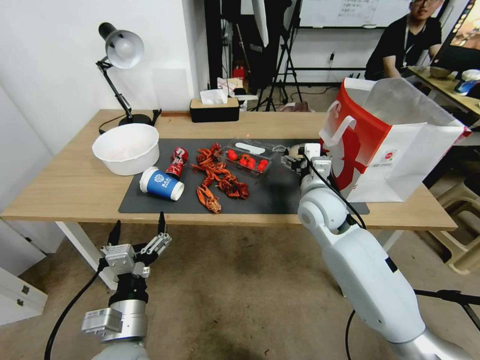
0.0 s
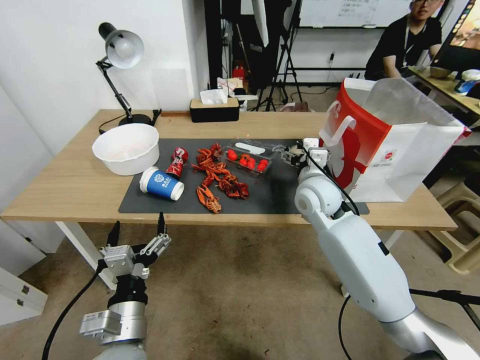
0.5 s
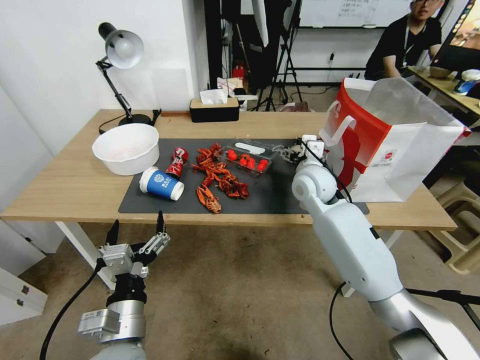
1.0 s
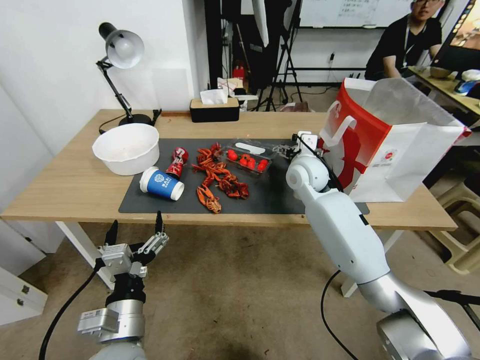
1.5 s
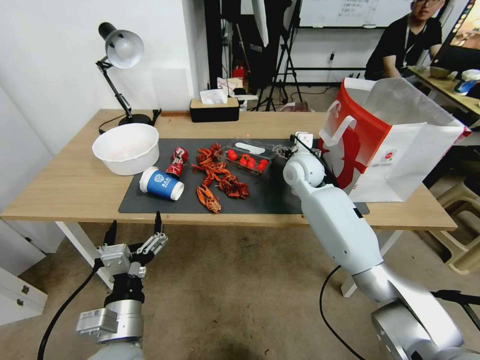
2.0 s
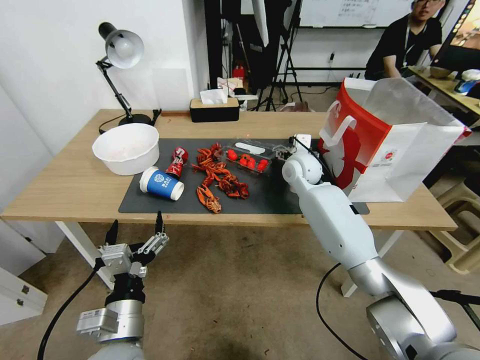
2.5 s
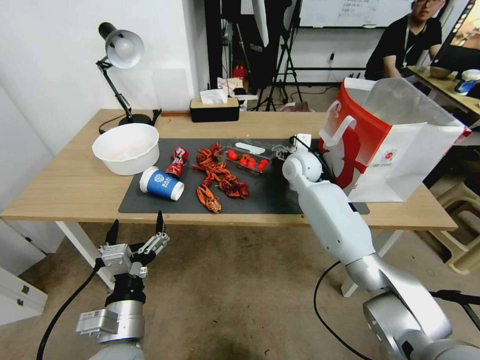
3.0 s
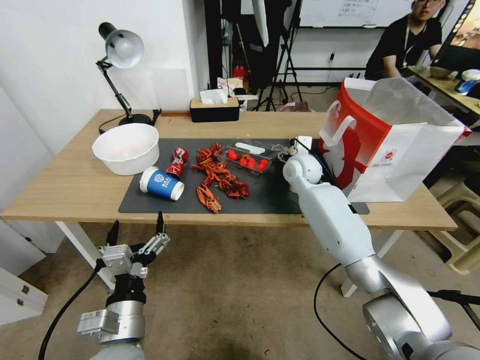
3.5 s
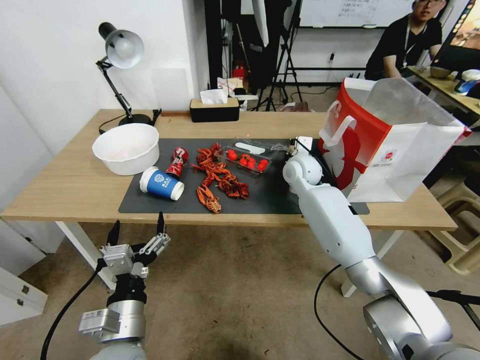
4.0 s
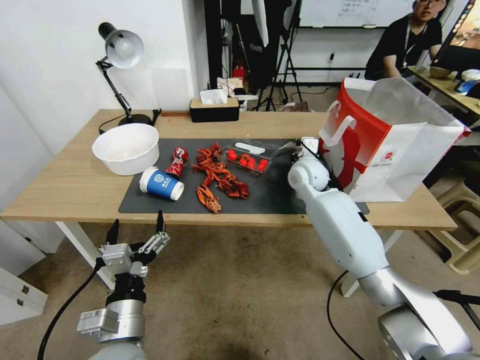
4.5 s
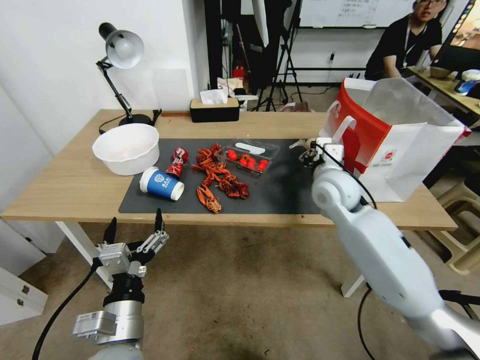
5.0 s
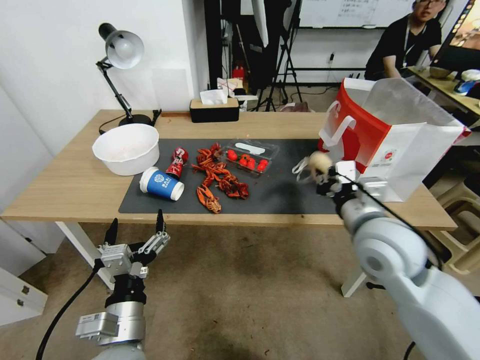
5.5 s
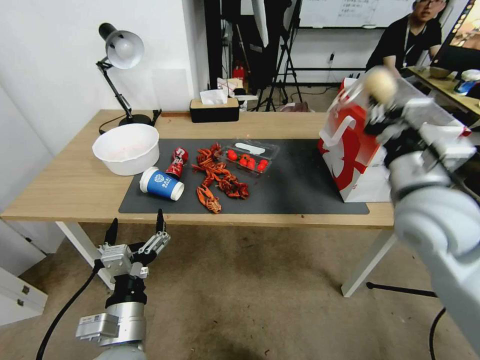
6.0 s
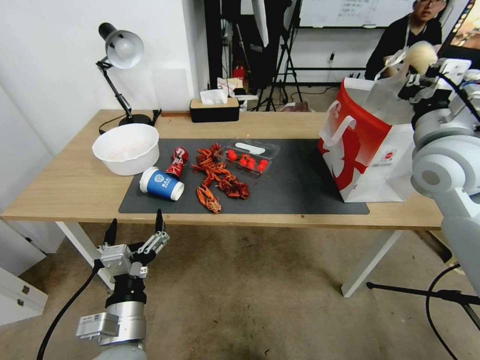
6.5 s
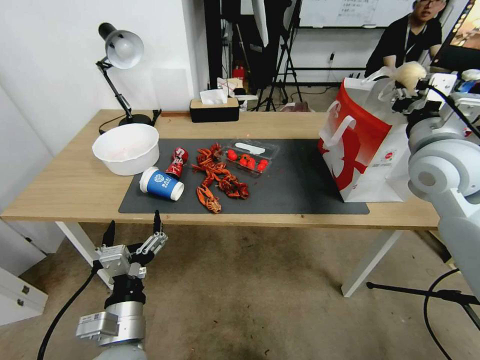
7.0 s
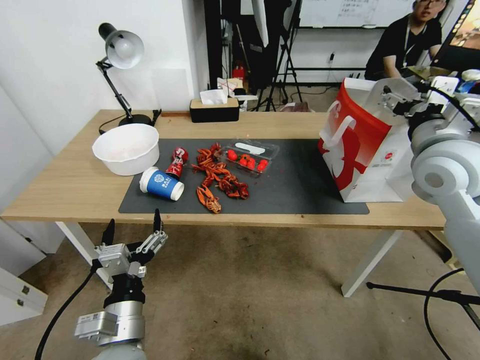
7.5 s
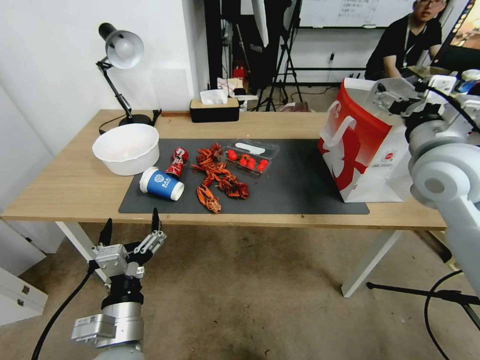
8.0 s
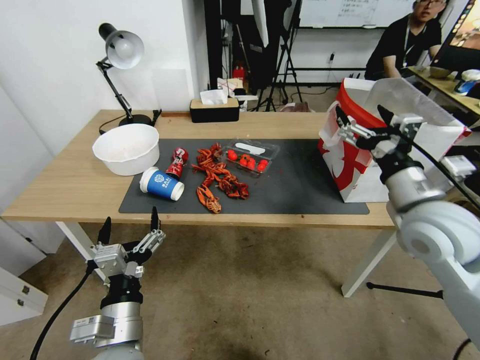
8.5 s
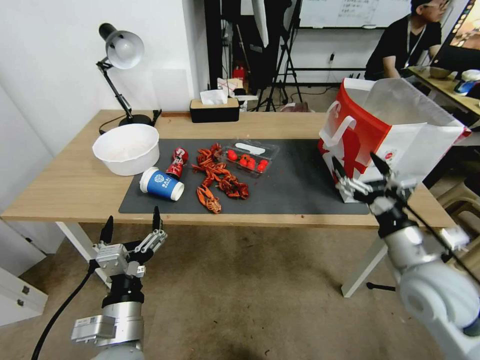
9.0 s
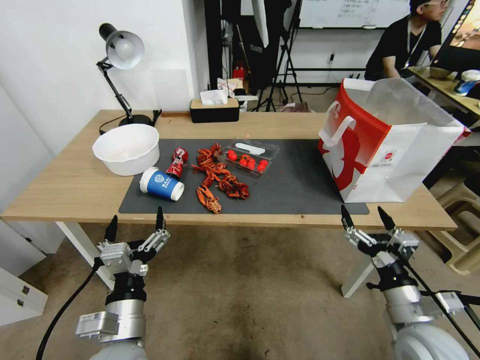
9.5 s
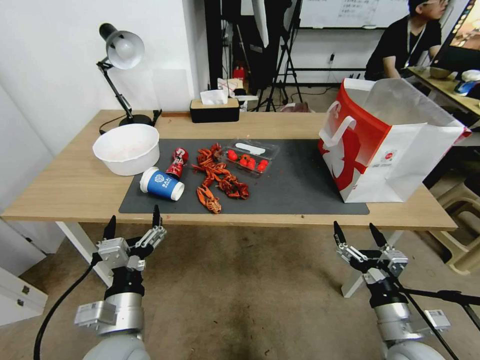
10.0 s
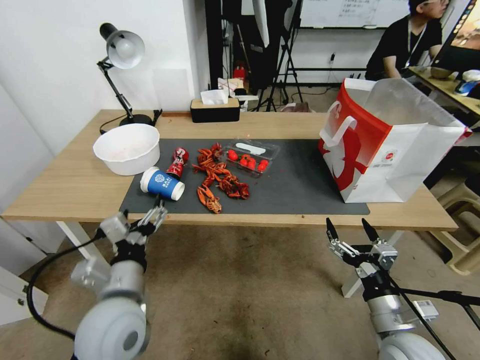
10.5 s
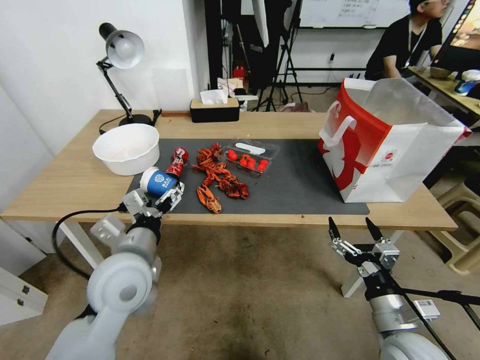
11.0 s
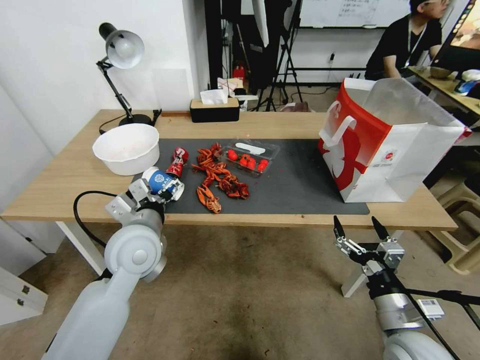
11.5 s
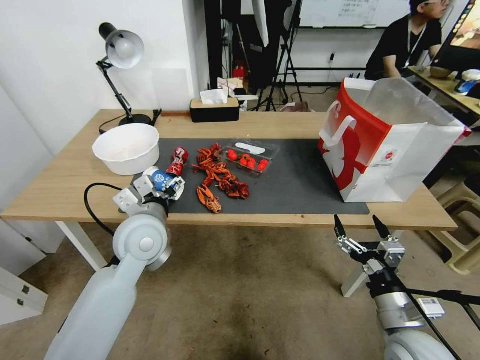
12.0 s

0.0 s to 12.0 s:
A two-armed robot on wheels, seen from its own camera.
0.0 to 2.0 s: The right gripper heads forward, covering roughly 10 cm.
2.0 to 4.0 s: The right gripper closes up.
4.0 to 6.0 s: The right gripper is displaced backward, upward and to the right by some 30 cm.
6.0 to 8.0 s: The right gripper heads forward, covering about 5 cm, and opens.
8.0 to 10.0 s: The right gripper goes about 35 cm downward and backward.
10.0 to 12.0 s: The left gripper goes roughly 20 cm forward and upward.

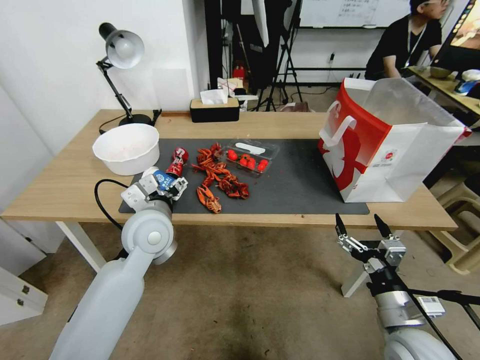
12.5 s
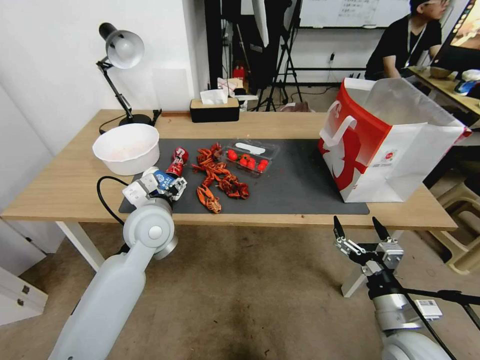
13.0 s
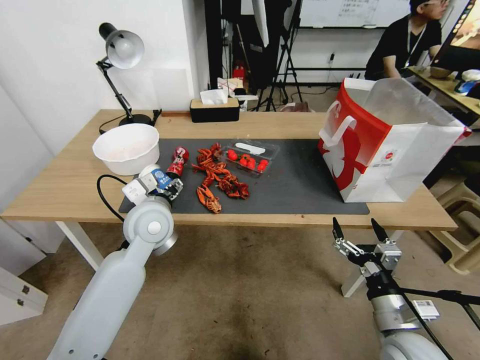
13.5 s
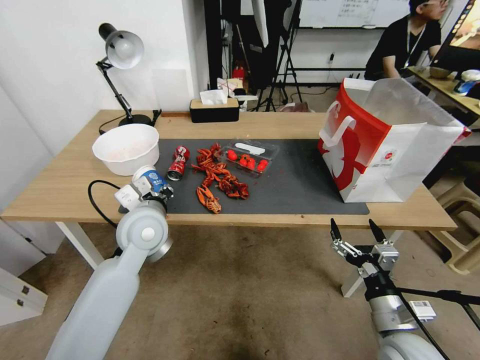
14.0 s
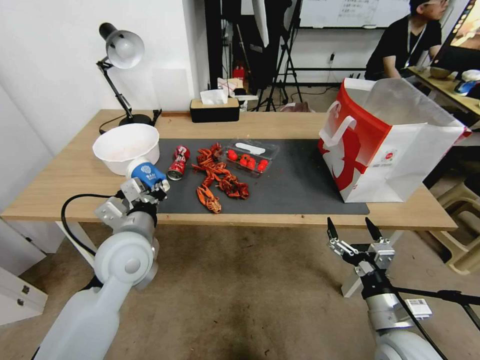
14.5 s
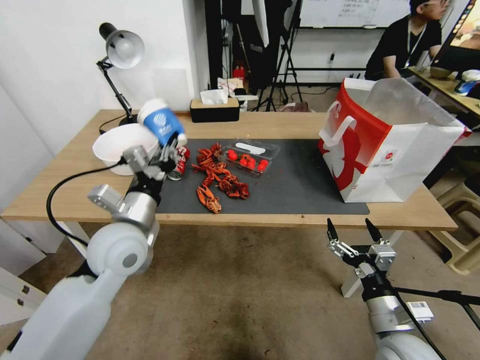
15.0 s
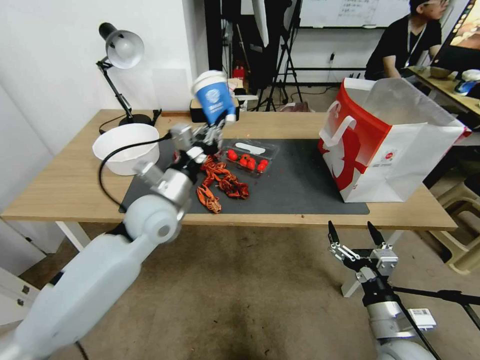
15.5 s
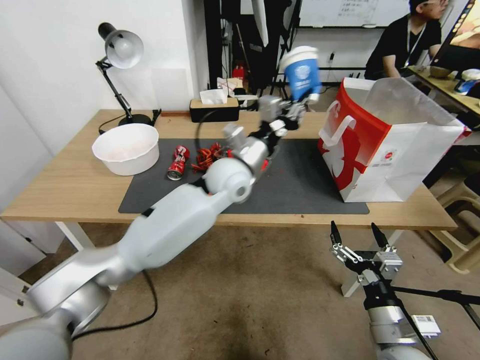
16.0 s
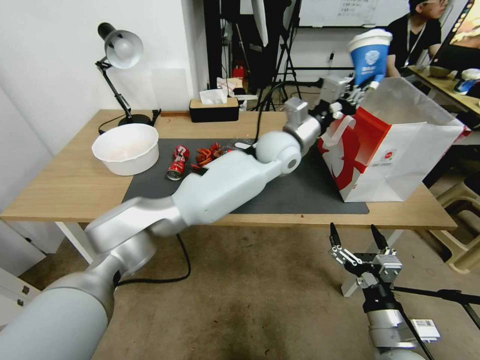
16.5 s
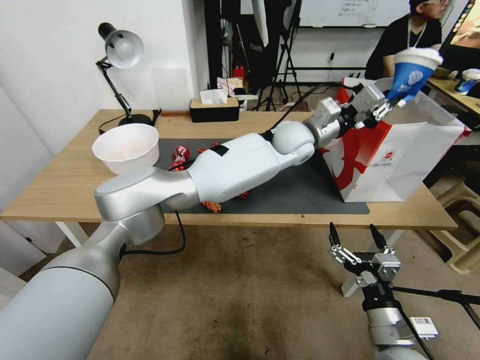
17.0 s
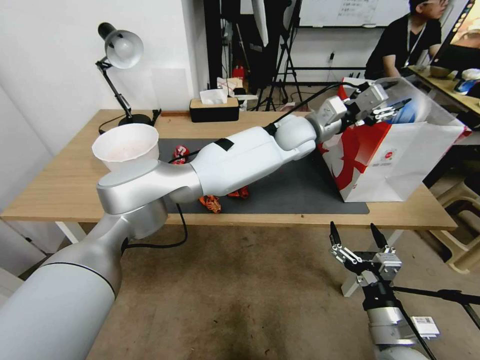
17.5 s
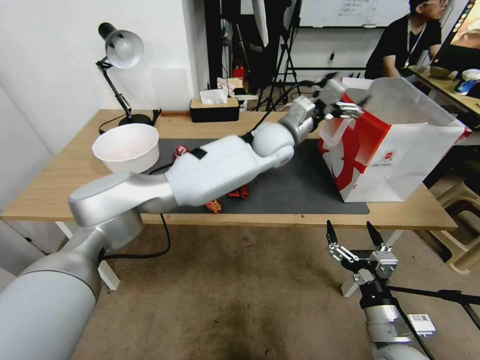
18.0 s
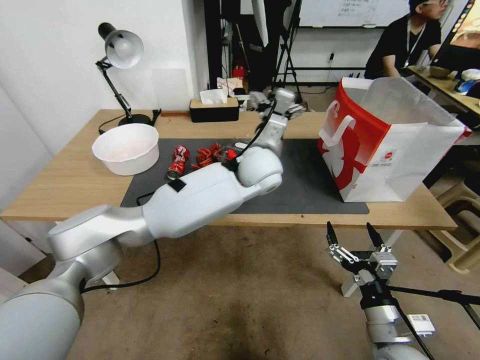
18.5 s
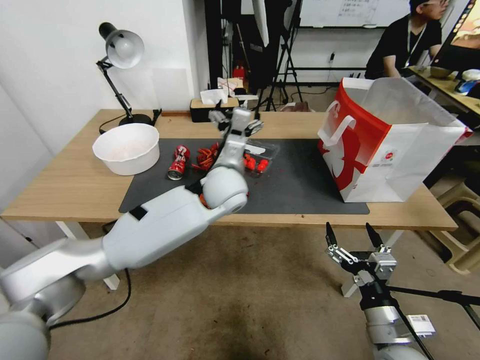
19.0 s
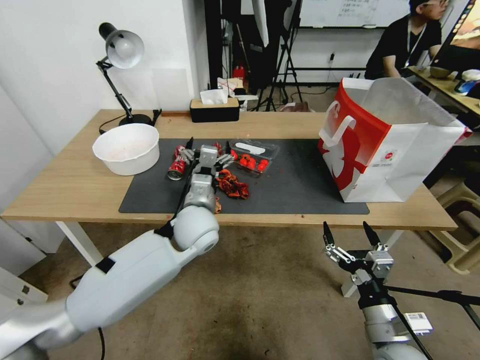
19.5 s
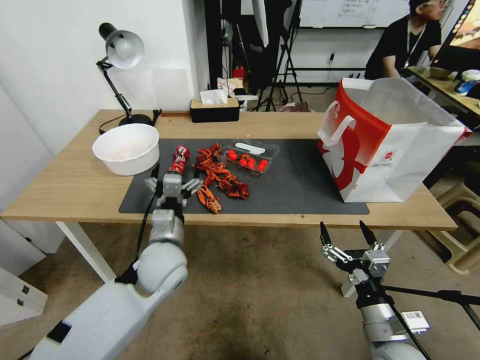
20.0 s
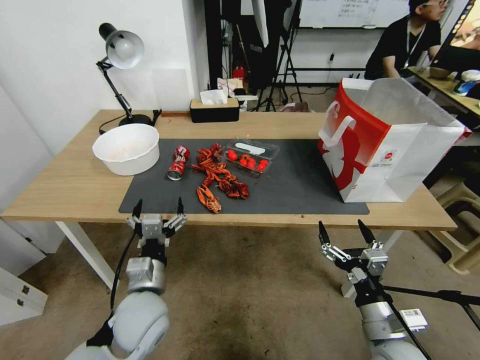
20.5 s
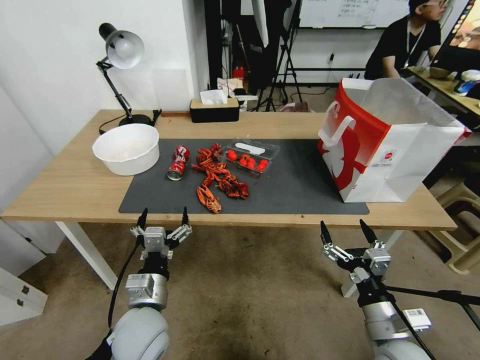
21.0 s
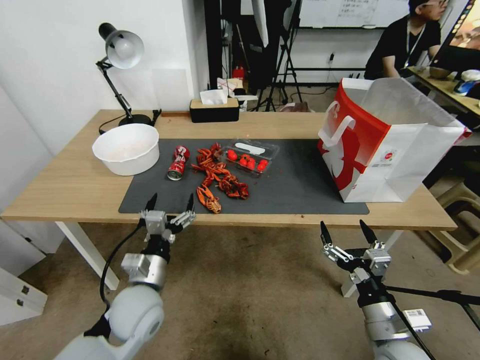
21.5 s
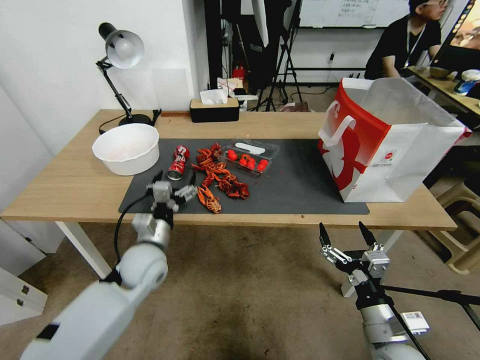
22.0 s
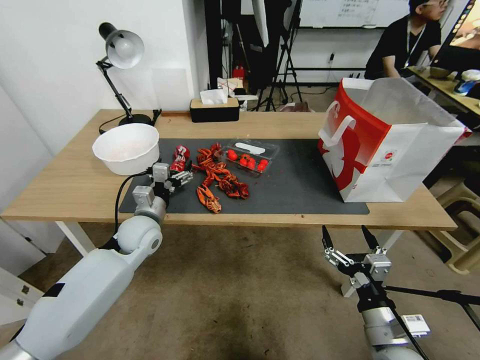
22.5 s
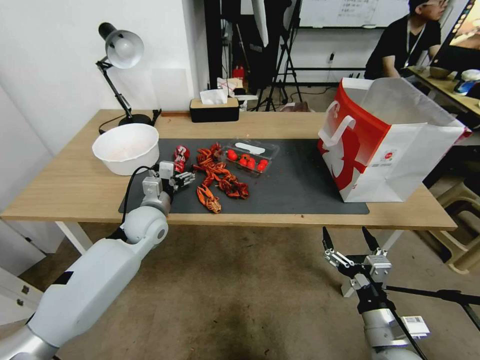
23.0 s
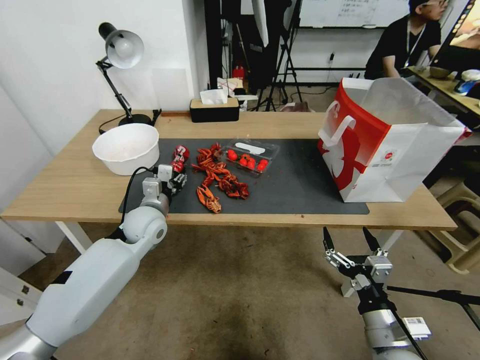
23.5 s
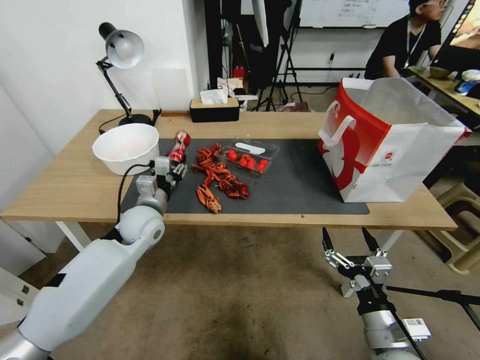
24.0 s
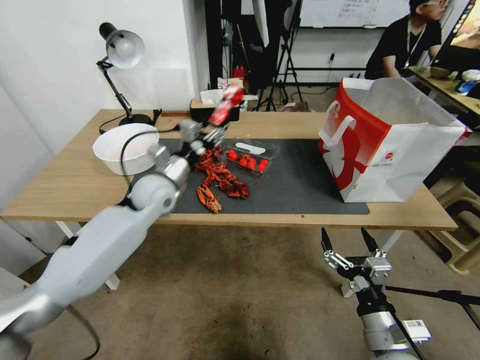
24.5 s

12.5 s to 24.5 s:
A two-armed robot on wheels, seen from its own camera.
12.5 to 14.5 s: The left gripper shifts by roughly 5 cm, and closes.
14.5 to 16.5 s: The left gripper heads to the right and forward, covering approximately 35 cm.
16.5 to 18.5 s: The left gripper shifts by about 5 cm, and opens its fingers.
18.5 to 20.5 s: The left gripper travels backward, to the left and downward by about 35 cm.
20.5 to 22.5 s: The left gripper moves forward, some 15 cm.
22.5 to 24.5 s: The left gripper is displaced upward, forward and to the right by roughly 15 cm, and closes.

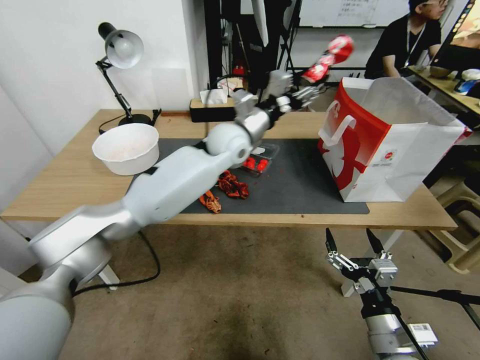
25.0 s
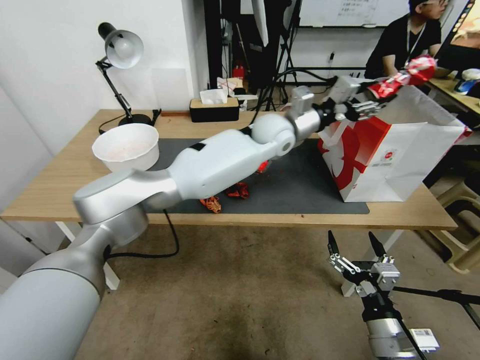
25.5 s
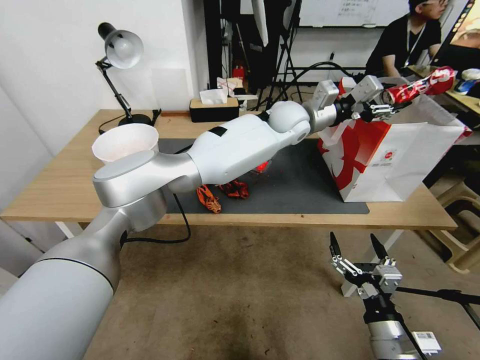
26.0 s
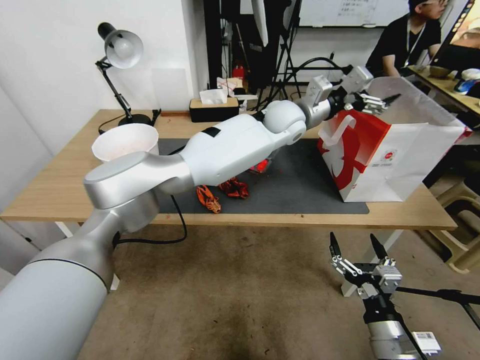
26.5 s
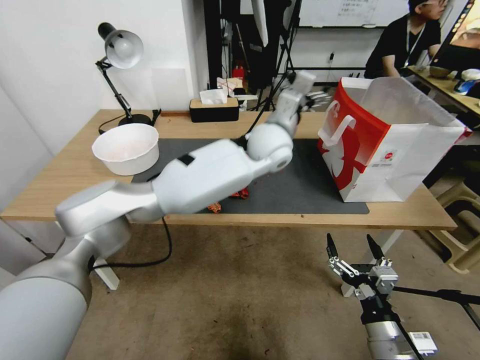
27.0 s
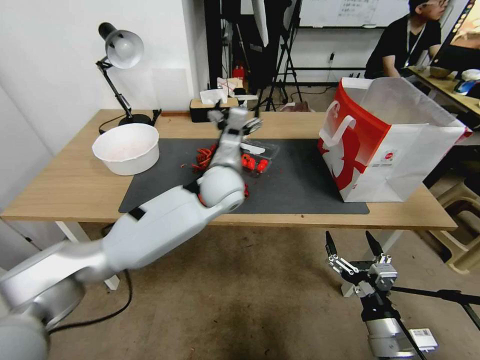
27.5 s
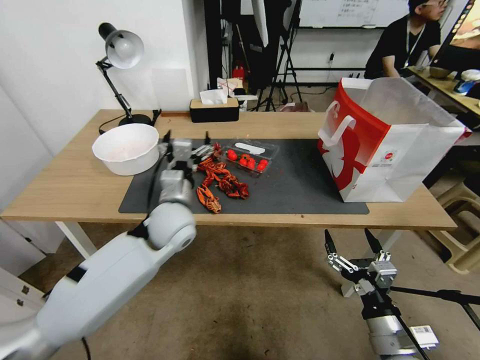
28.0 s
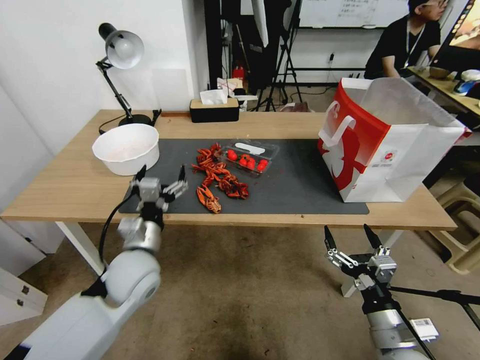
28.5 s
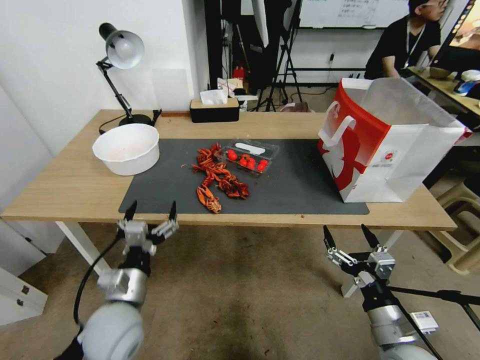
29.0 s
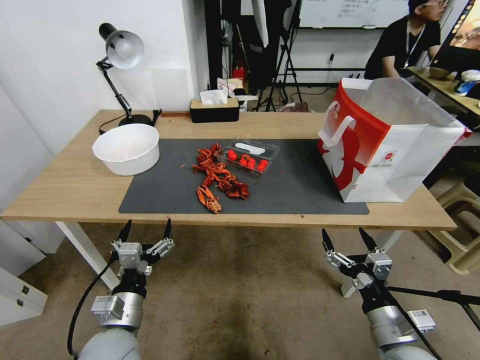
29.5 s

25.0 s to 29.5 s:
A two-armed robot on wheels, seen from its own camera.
25.0 to 27.0 s: The left gripper is displaced to the right by about 10 cm, and opens up.
27.0 to 29.5 s: The left gripper shifts approximately 50 cm backward, to the left and downward.
